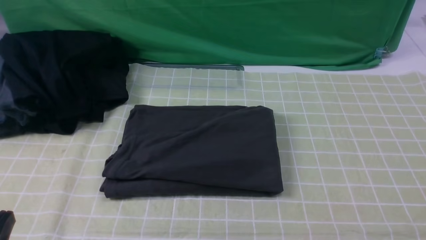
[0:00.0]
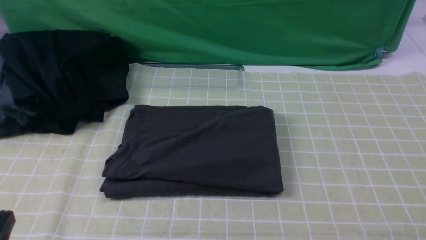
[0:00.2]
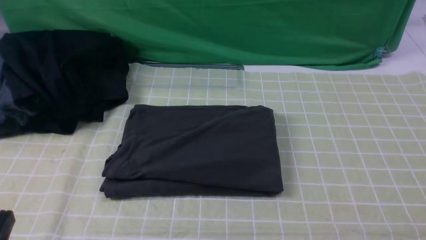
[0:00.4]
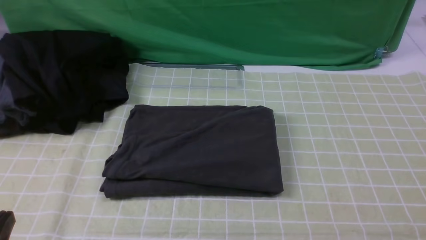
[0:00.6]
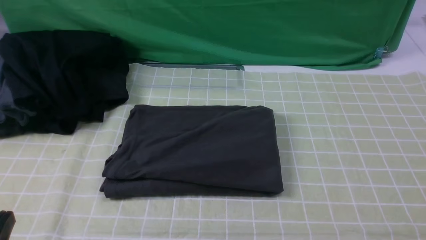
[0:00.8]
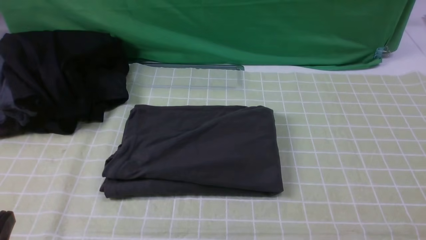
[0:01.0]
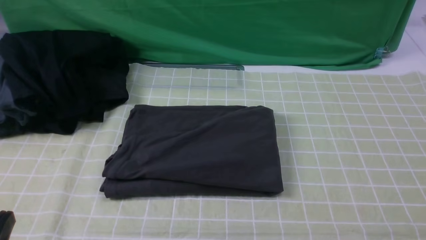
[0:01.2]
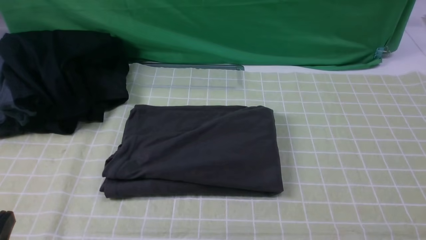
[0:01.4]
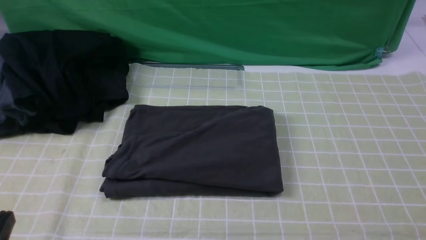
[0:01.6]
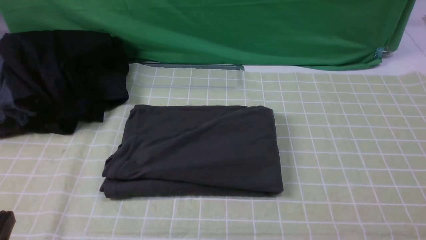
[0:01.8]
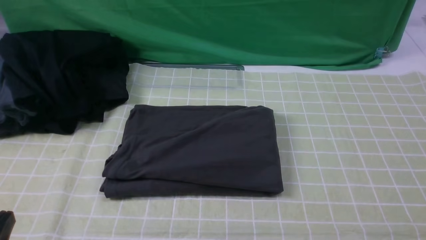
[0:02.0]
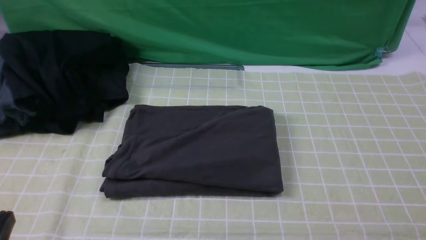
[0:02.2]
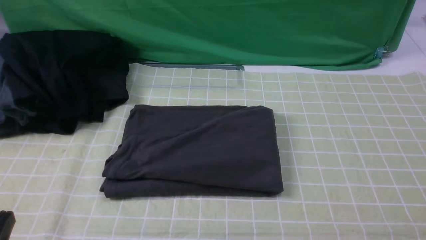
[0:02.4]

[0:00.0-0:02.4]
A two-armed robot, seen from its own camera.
0:01.2 to 0:02.4: Neither gripper changes place.
